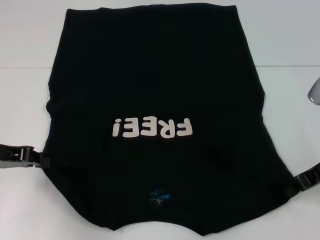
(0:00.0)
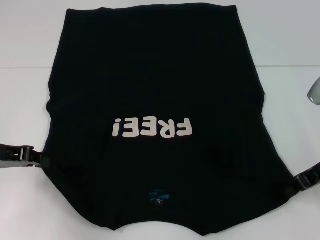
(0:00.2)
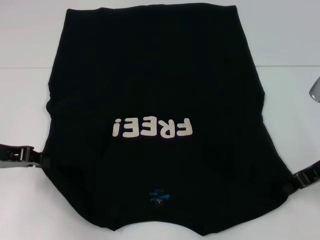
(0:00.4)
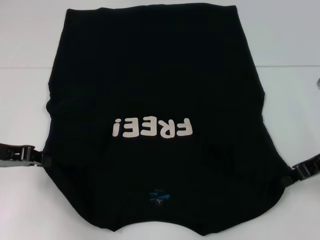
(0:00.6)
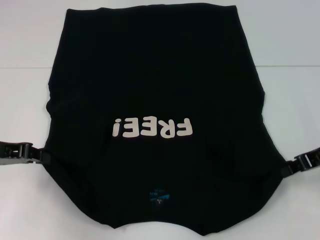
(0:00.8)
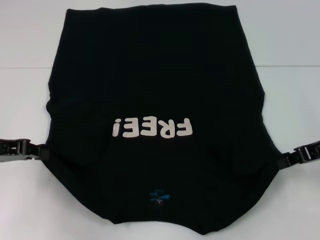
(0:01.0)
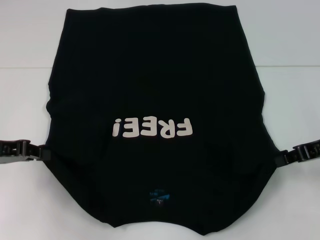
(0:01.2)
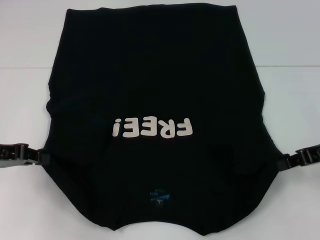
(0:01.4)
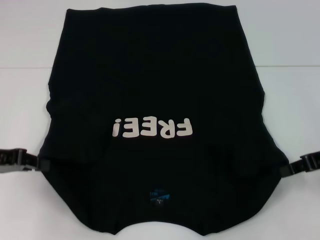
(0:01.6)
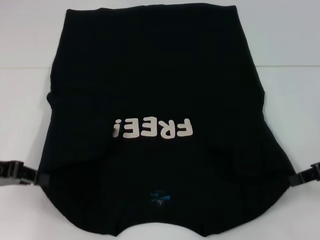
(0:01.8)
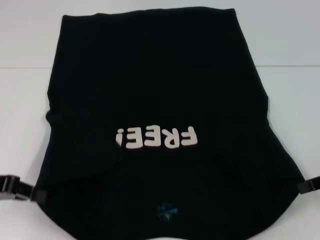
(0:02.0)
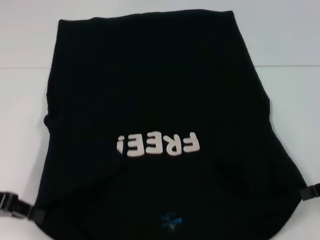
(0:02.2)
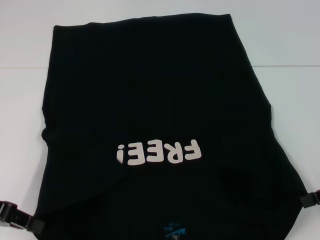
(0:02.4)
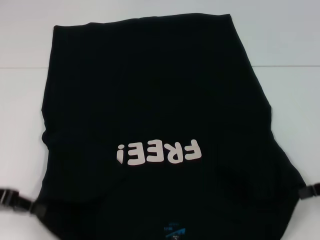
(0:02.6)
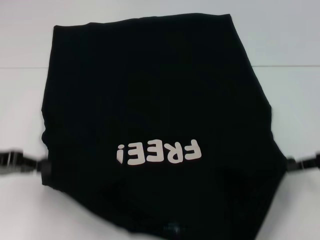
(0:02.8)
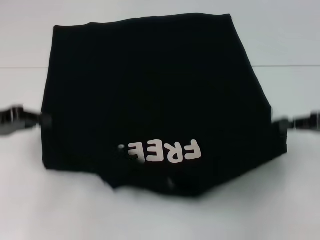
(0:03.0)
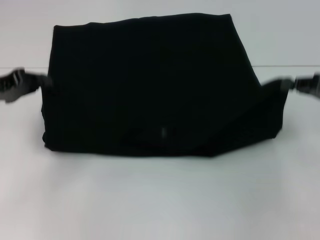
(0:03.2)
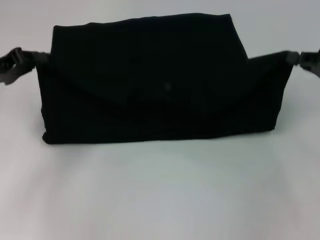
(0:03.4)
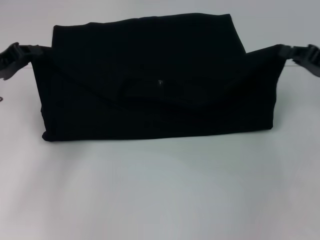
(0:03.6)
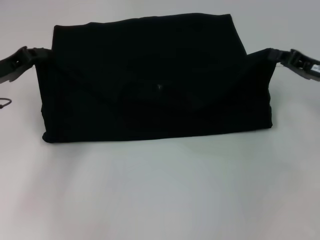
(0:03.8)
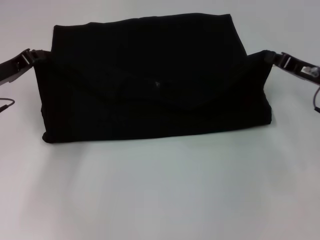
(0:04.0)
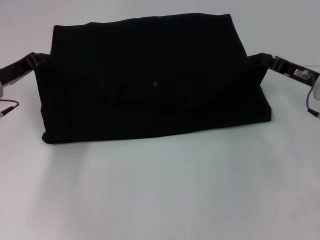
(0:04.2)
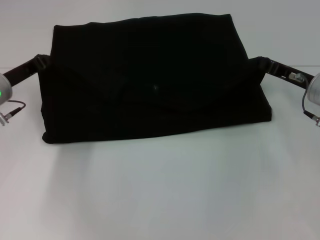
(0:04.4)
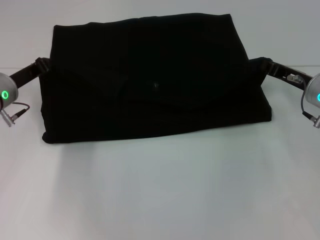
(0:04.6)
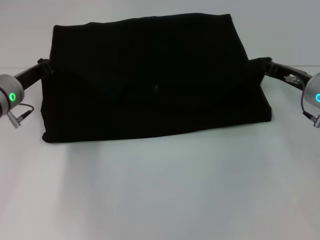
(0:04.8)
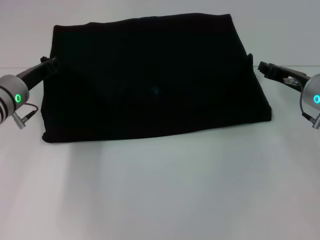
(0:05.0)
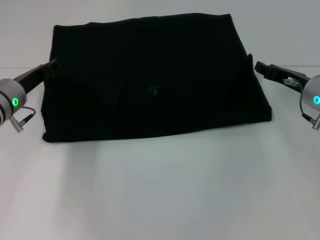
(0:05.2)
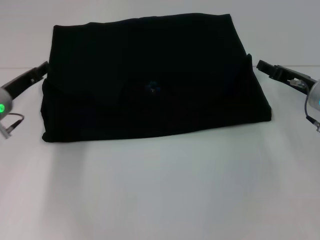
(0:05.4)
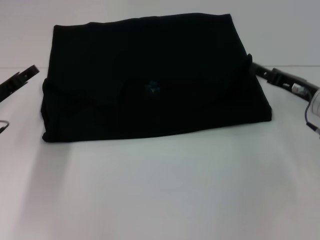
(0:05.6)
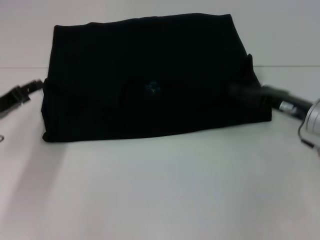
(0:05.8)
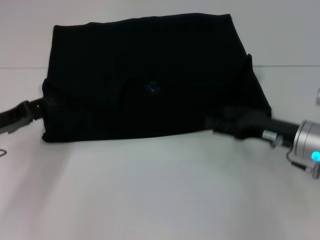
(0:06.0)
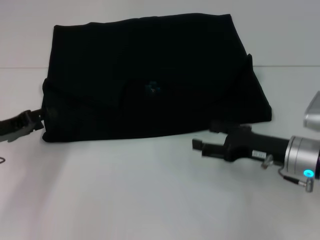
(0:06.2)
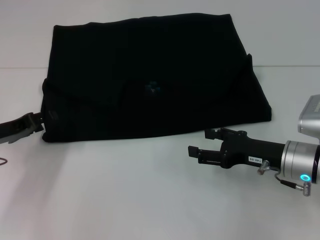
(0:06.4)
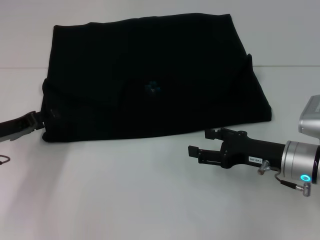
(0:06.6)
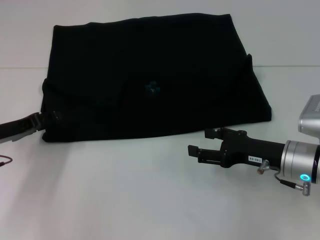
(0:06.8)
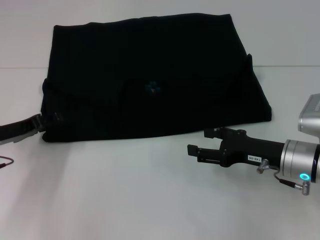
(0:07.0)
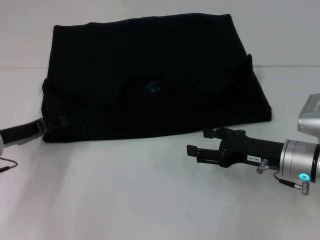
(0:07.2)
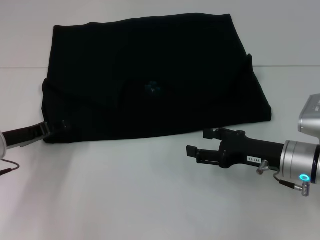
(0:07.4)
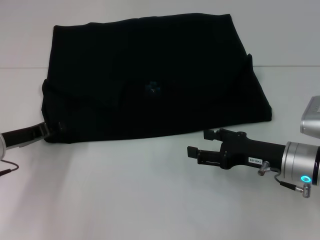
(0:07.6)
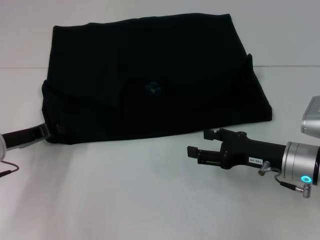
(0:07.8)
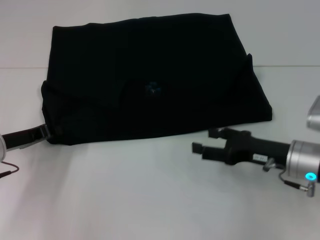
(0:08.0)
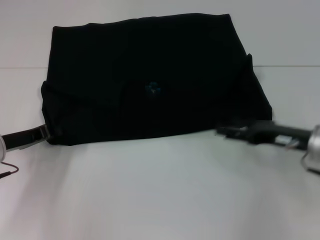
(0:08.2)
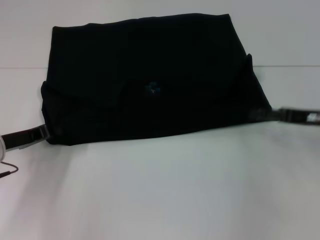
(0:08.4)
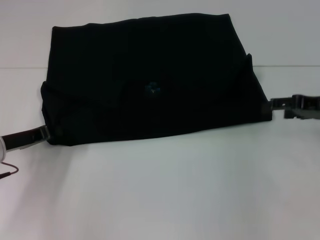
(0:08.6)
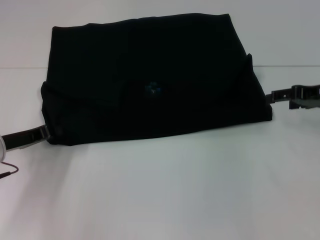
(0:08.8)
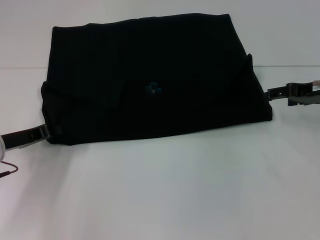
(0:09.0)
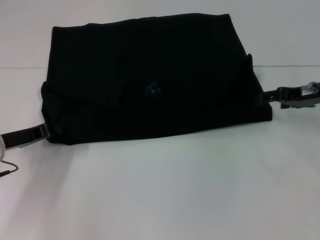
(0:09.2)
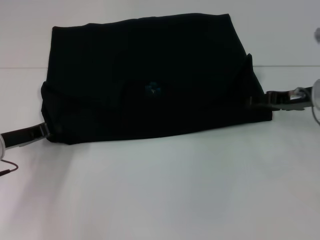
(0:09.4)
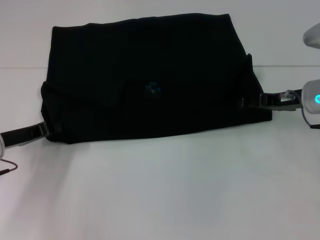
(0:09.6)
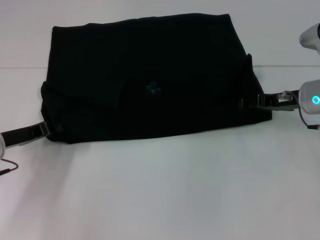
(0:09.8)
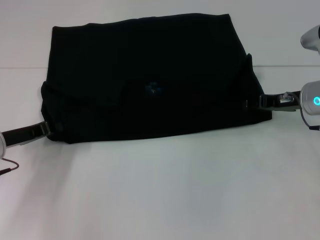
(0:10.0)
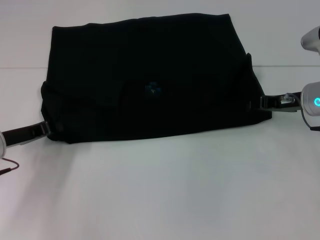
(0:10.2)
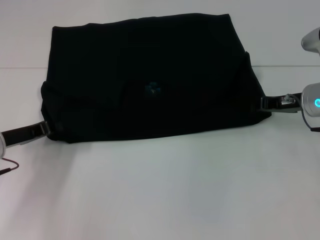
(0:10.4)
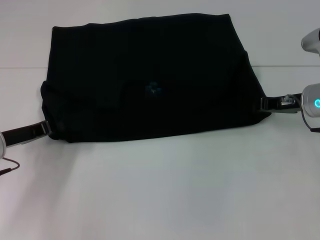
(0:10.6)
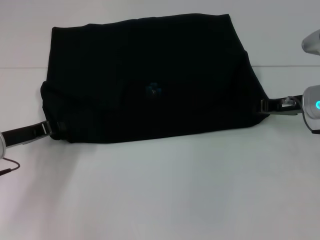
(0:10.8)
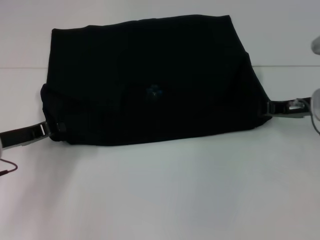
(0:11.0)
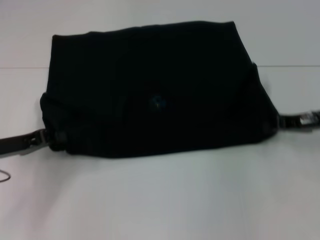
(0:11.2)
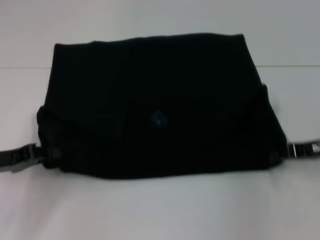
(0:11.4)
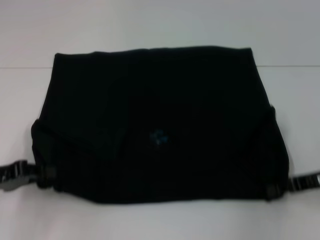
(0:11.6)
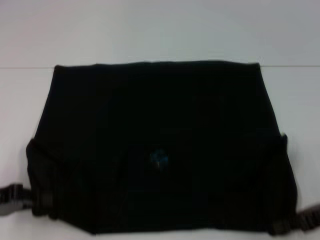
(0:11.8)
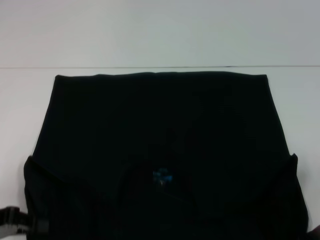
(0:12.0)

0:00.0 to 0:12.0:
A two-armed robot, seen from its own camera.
Step, 0:00.8 to 0:05.2: Fold the clothes with your left hand.
Step, 0:00.8 to 0:05.2: Fold the clothes with your right hand.
0:00.0 to 0:01.6: The grippers stay close to where they were, moving slightly.
0:03.0 to 0:04.4: The left gripper goes about 10 cm forward and to the right. Meanwhile the right gripper shifts roughly 10 cm forward, to the left and downward.
0:04.4 to 0:06.0: Both grippers travel together backward, some 5 cm. The left gripper opens up; the right gripper opens its fingers.
0:06.0 to 0:07.6: The grippers stay close to where they were, moving slightly.
0:07.6 to 0:09.0: The left gripper closes; the right gripper shifts about 15 cm forward, upward and to the right.
0:09.0 to 0:10.4: The right gripper changes place by some 5 cm, and closes its fingers.
0:10.4 to 0:12.0: The left gripper goes some 10 cm backward, while the right gripper shifts about 20 cm backward and to the right.

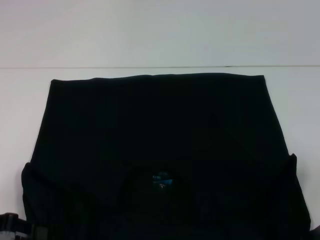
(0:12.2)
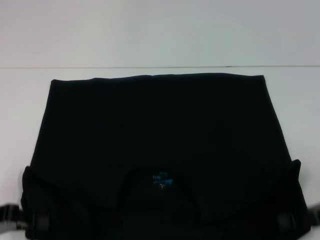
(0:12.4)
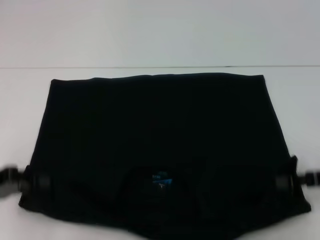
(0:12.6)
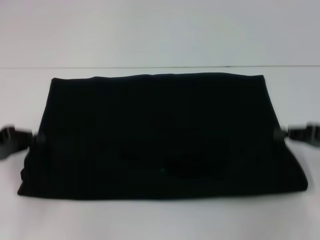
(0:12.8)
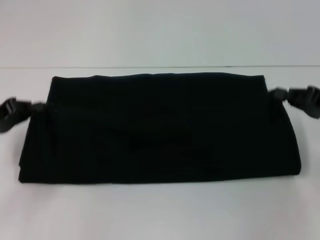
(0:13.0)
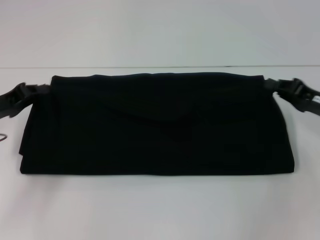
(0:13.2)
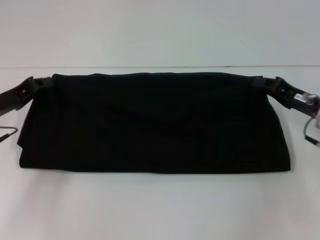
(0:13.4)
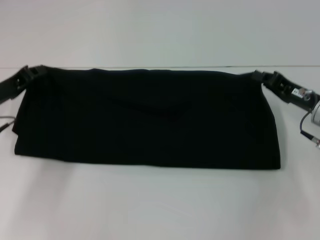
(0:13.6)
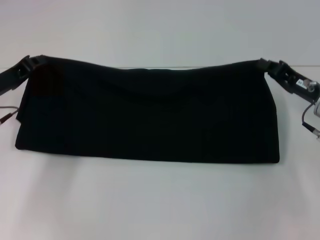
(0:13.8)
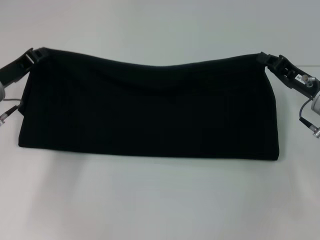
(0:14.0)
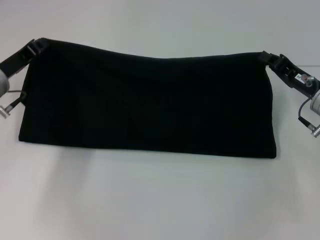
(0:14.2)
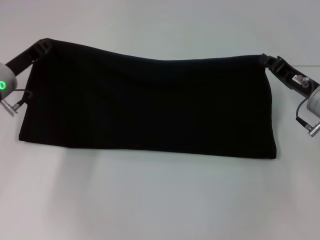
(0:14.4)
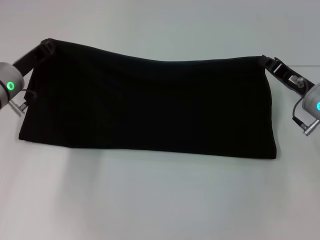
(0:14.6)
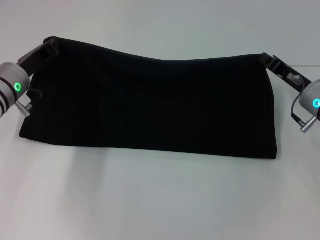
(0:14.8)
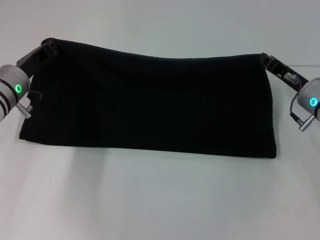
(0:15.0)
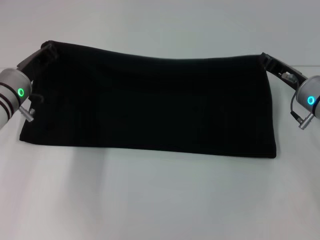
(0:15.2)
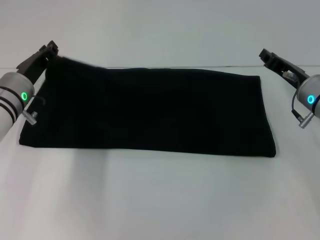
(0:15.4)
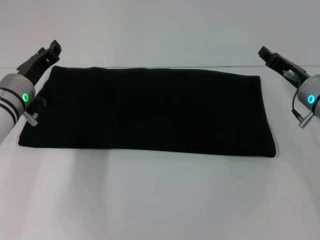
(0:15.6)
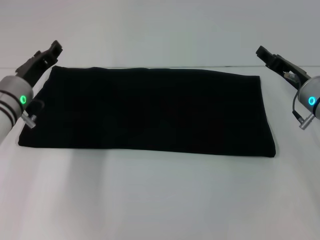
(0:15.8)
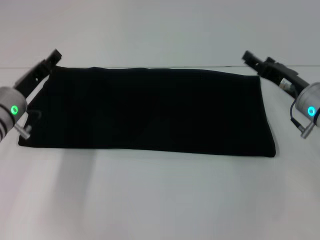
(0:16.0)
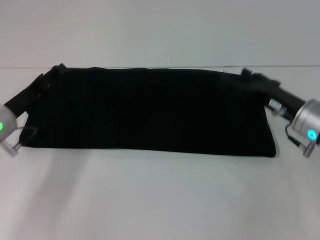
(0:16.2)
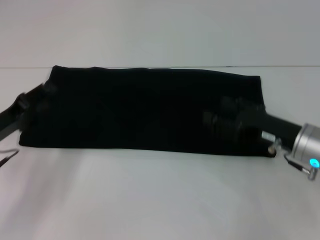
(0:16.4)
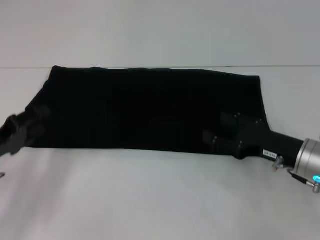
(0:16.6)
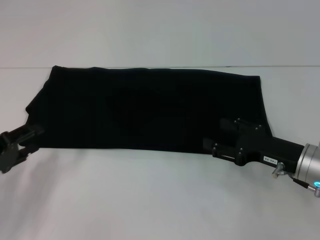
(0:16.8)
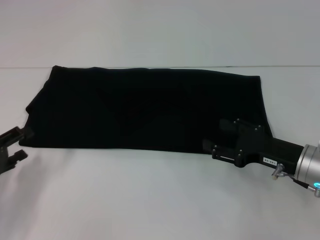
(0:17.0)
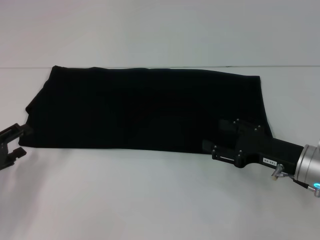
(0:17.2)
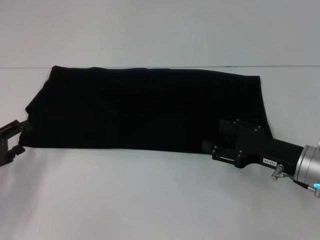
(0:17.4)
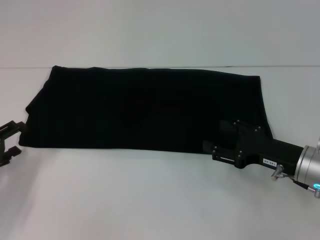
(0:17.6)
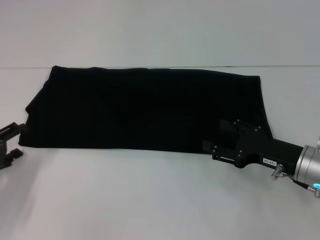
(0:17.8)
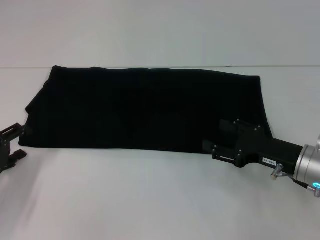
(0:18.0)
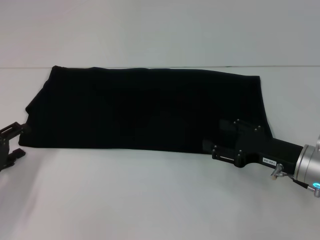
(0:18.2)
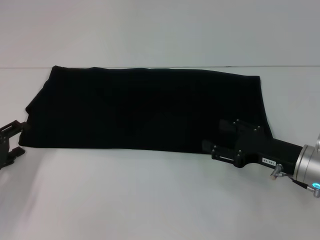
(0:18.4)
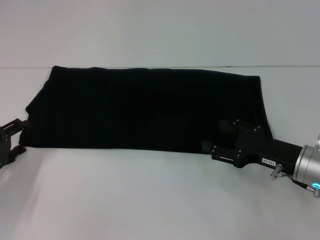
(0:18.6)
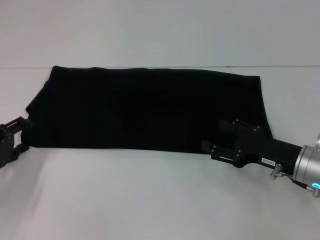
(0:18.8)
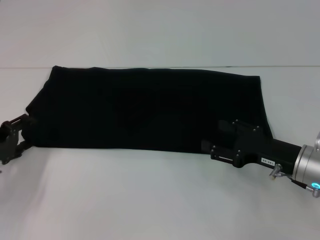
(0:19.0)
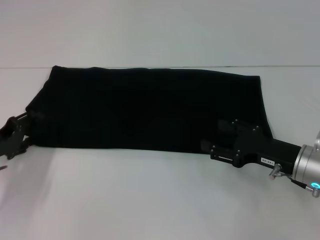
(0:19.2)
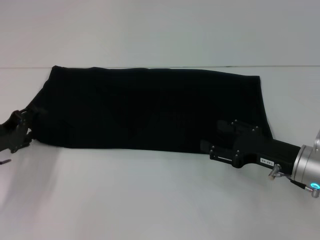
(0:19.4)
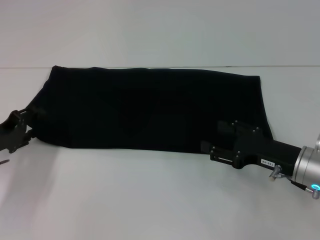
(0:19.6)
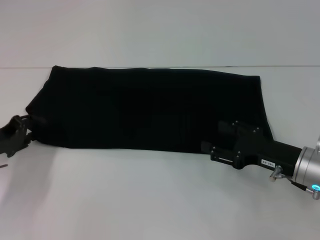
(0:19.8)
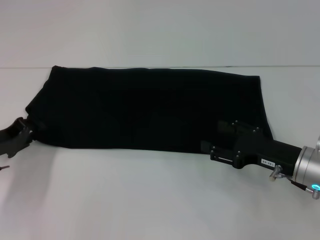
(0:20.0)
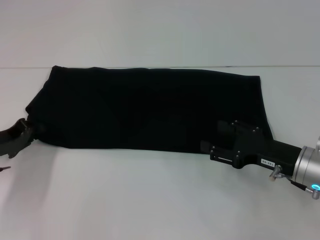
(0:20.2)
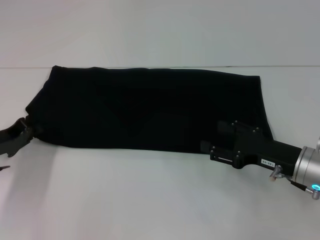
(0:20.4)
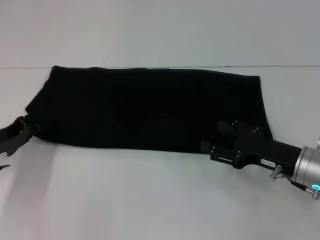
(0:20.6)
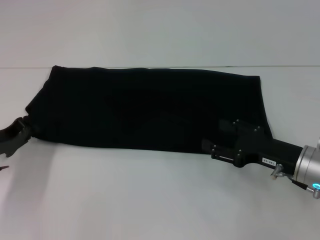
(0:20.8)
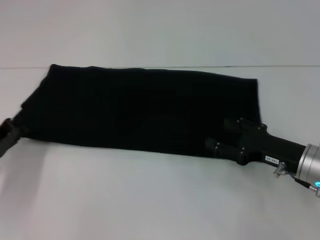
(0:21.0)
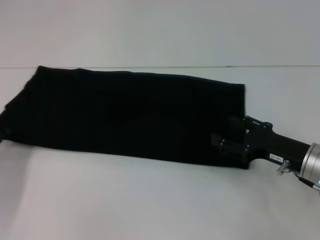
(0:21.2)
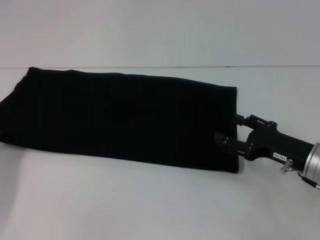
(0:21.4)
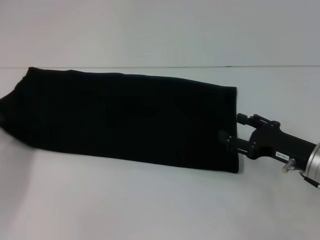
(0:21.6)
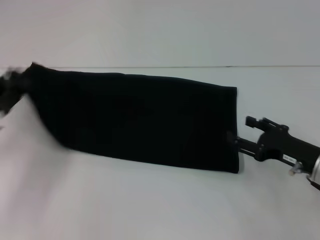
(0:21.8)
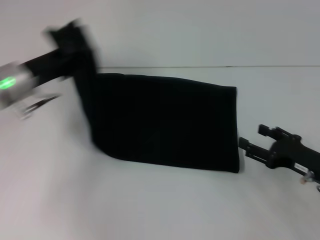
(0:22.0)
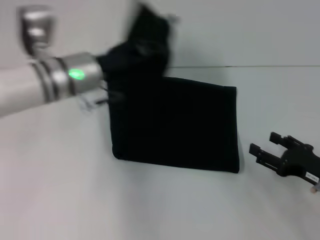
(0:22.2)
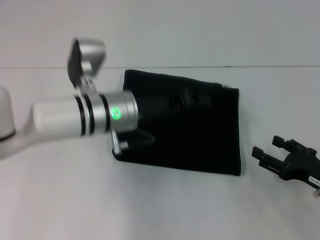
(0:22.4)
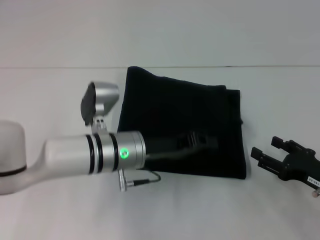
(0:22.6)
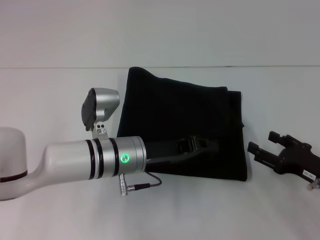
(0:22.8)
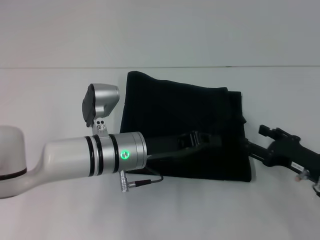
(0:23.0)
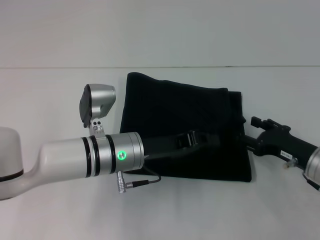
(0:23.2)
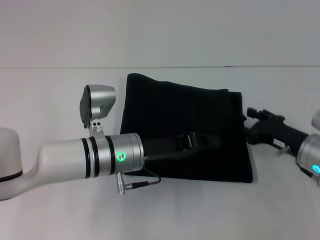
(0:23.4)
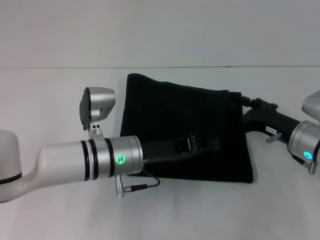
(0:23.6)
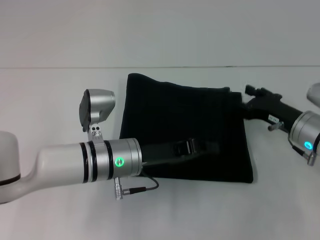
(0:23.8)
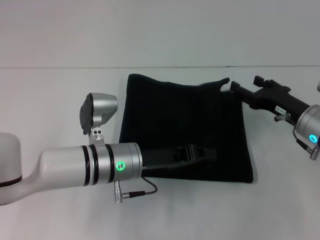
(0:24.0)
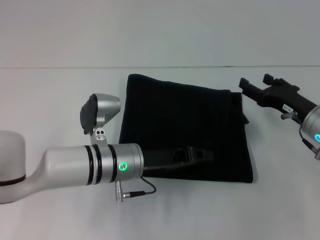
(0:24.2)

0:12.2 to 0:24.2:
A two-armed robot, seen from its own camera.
Step, 0:12.2 to 0:15.8: Fold the clothes with your right hand.
0:12.2 to 0:13.8: The left gripper shifts about 15 cm forward, while the right gripper travels forward and to the left by about 15 cm.
0:13.8 to 0:15.2: The left gripper heads to the right, covering roughly 5 cm.
0:15.2 to 0:16.6: The left gripper goes some 15 cm backward and to the left, and opens up. Meanwhile the right gripper travels backward by approximately 10 cm, and opens.
0:16.6 to 0:19.8: There are only small adjustments of the grippers.
0:19.8 to 0:21.2: The left gripper closes.
0:21.2 to 0:22.6: The right gripper is displaced to the right by about 5 cm, while the left gripper heads to the right, covering about 25 cm.
0:22.6 to 0:24.2: The right gripper goes approximately 10 cm forward.
